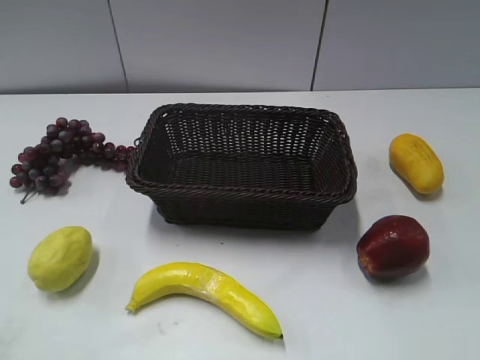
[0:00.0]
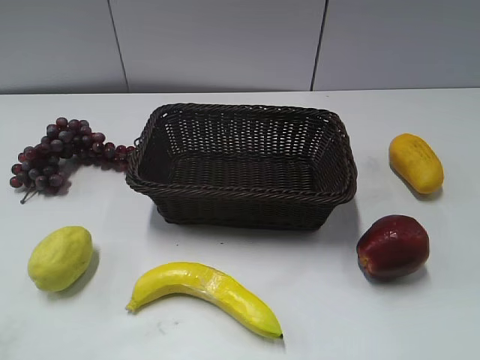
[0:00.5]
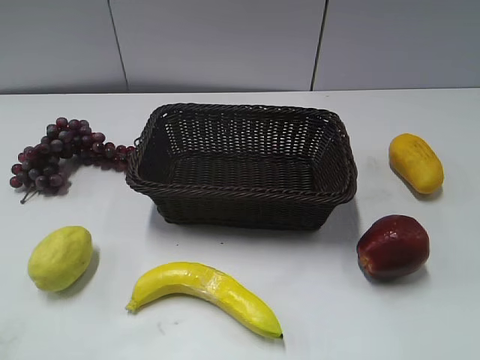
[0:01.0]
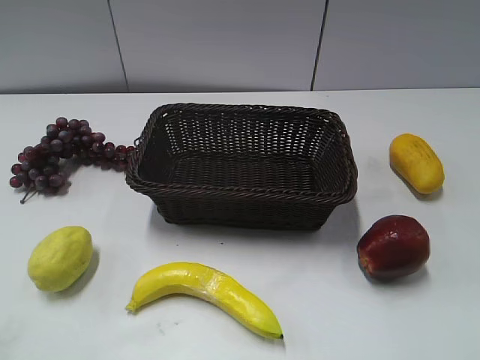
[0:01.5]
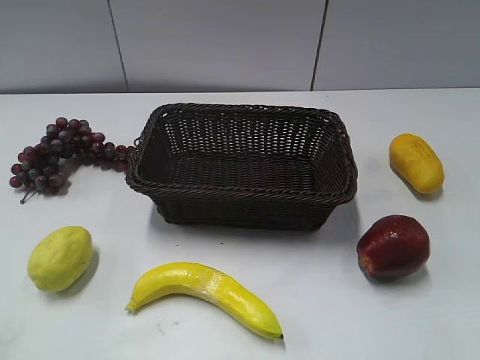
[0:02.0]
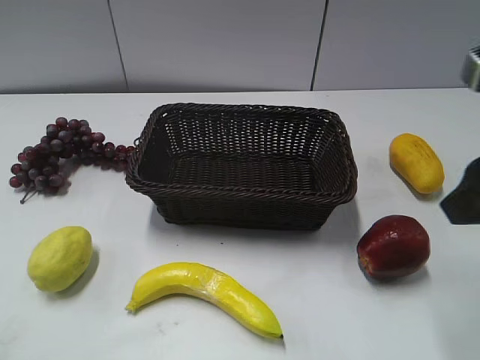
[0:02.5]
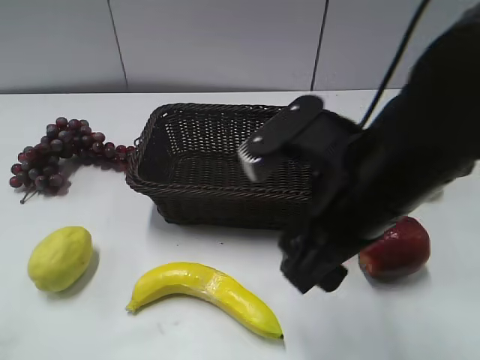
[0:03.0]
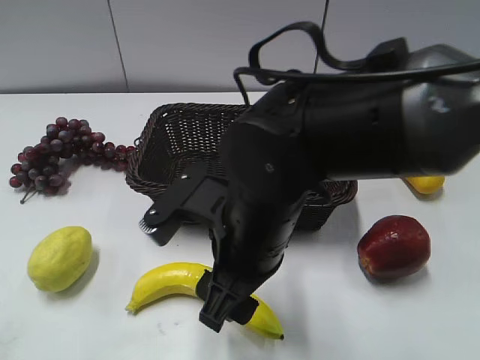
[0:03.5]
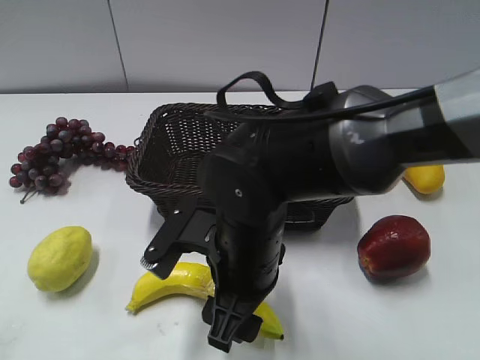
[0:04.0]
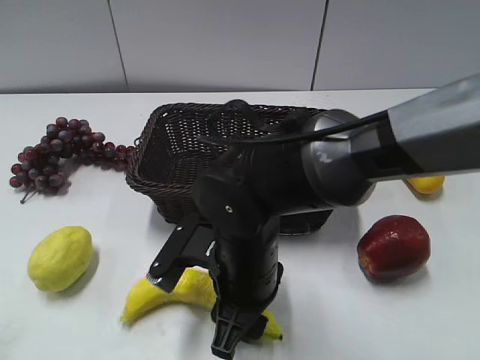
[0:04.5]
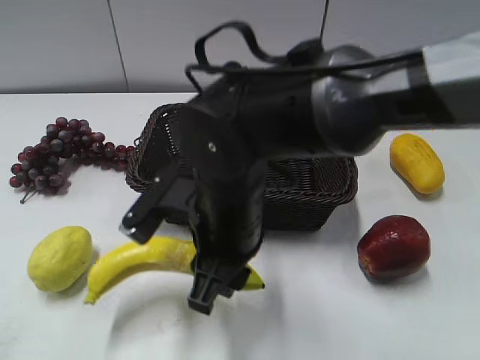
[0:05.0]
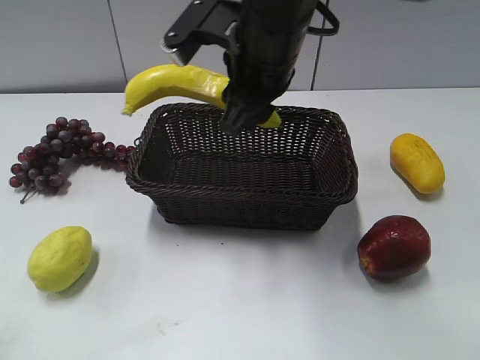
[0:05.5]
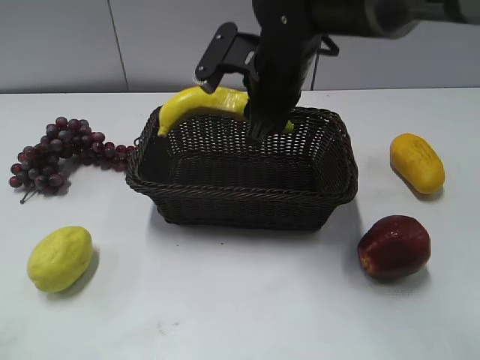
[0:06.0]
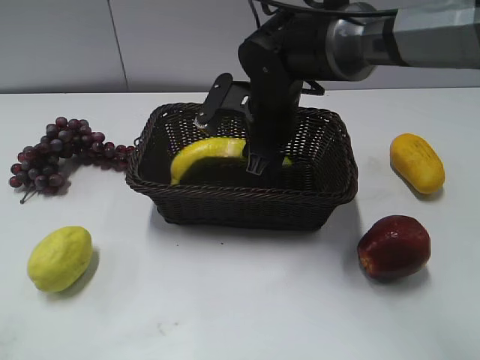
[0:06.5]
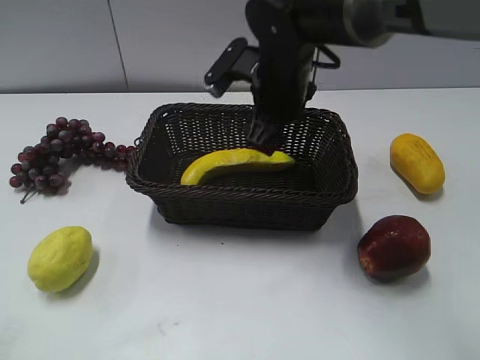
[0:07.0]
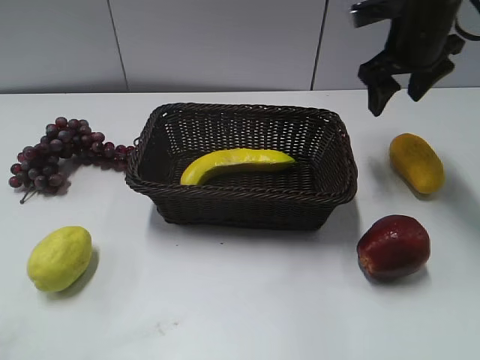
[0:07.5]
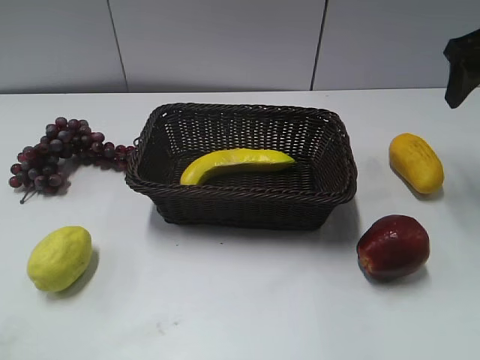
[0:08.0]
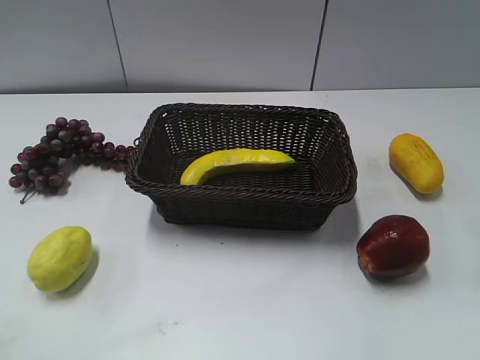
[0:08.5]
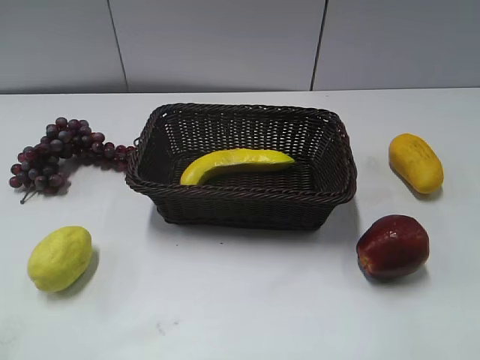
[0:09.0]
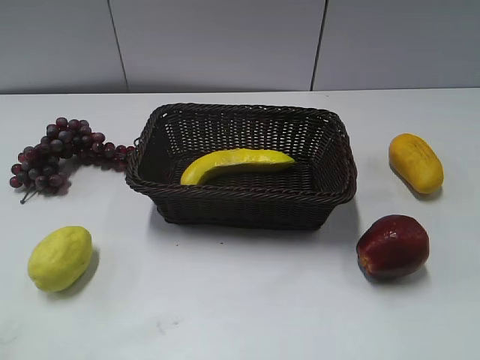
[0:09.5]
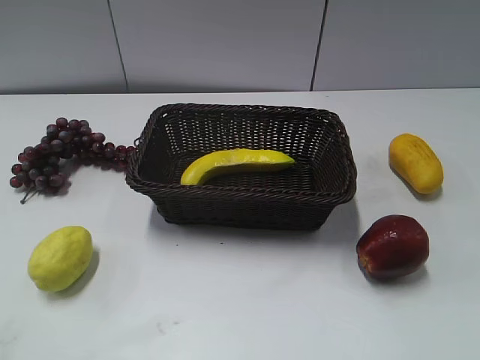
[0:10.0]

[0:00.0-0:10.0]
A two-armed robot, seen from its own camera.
Step, 0:02.5 to 0:04.5: Grasp the banana with right gripper.
Step, 0:05.0 to 0:06.5: Place the banana in the basket with right gripper.
0:02.0 to 0:04.0: The right gripper heads to the left and downward, covering about 35 cm.
0:04.0 to 0:06.0: The right gripper travels forward and upward by about 20 cm, and closes its fingers.
0:06.0 to 0:08.0: The right gripper shifts approximately 25 cm to the right, and opens its fingers.
0:08.0 to 0:10.0: The right gripper travels backward by approximately 40 cm.
